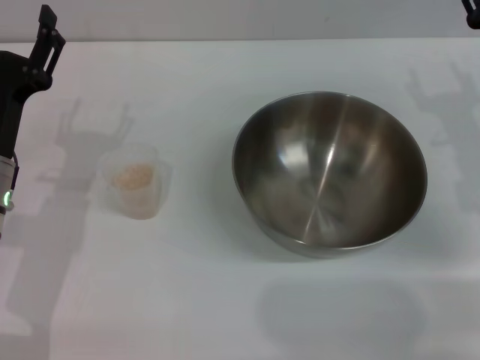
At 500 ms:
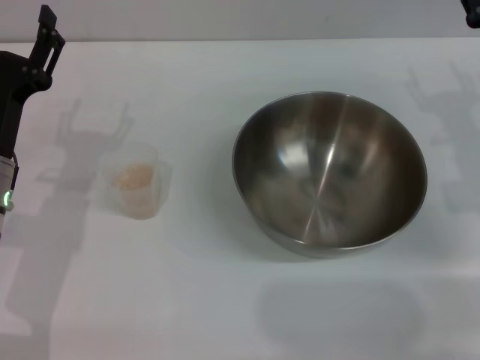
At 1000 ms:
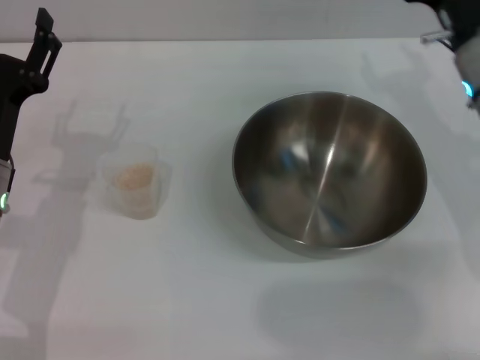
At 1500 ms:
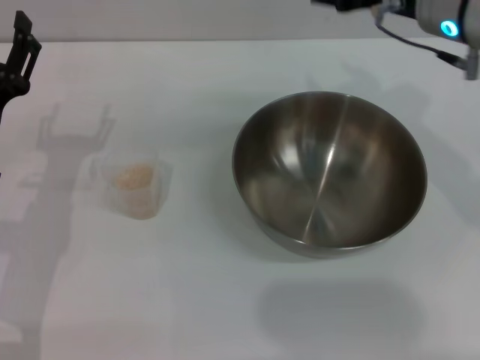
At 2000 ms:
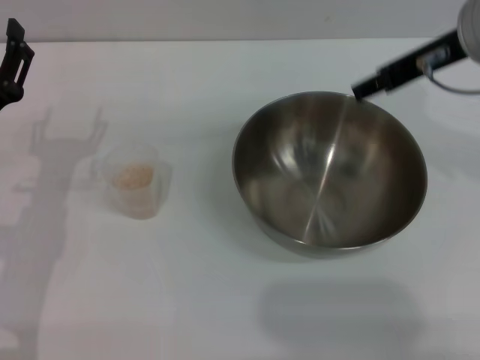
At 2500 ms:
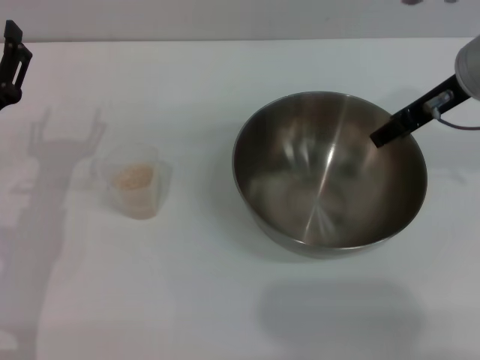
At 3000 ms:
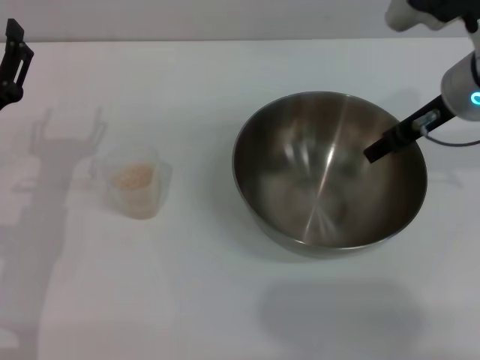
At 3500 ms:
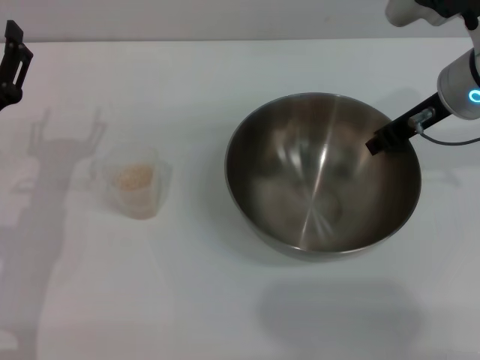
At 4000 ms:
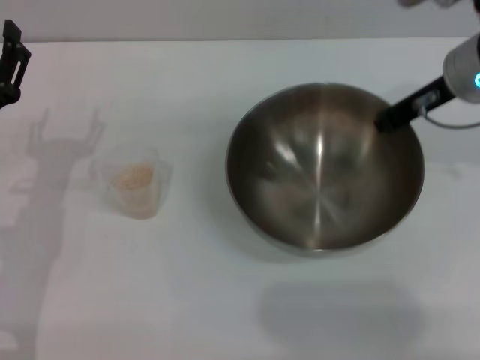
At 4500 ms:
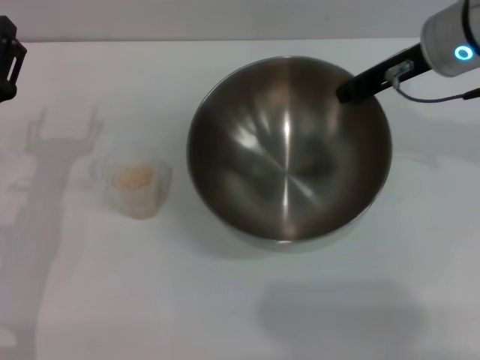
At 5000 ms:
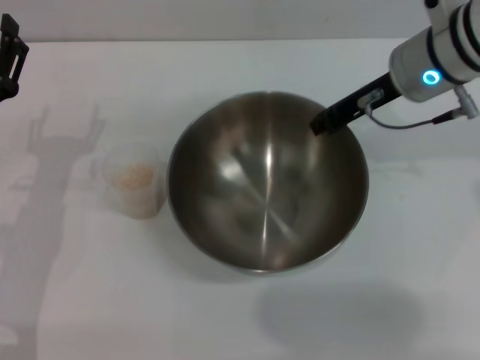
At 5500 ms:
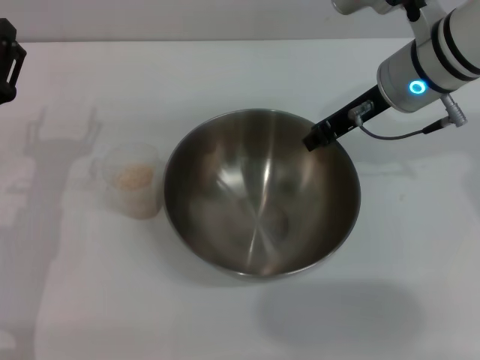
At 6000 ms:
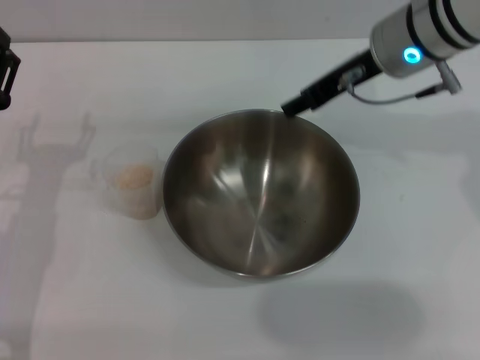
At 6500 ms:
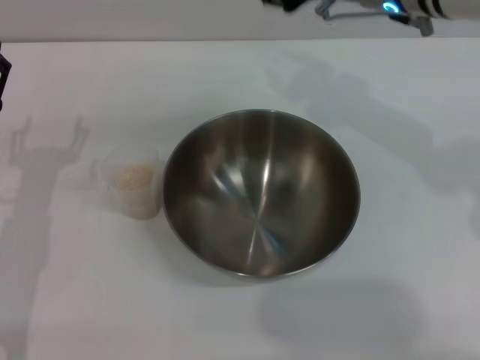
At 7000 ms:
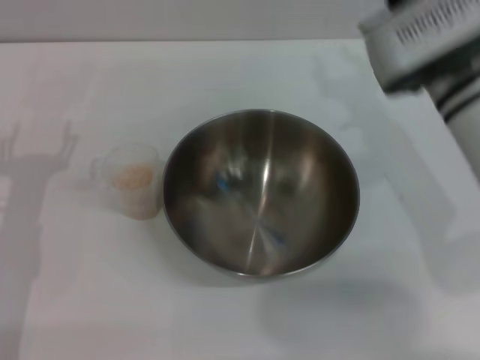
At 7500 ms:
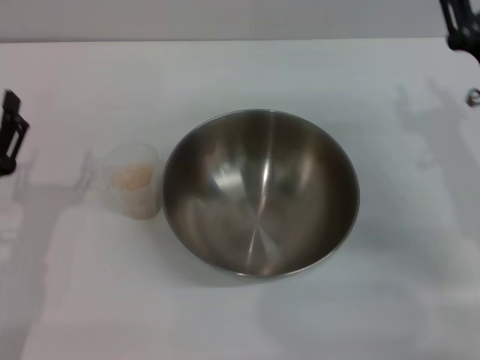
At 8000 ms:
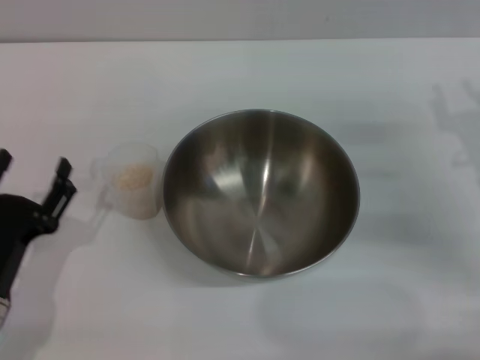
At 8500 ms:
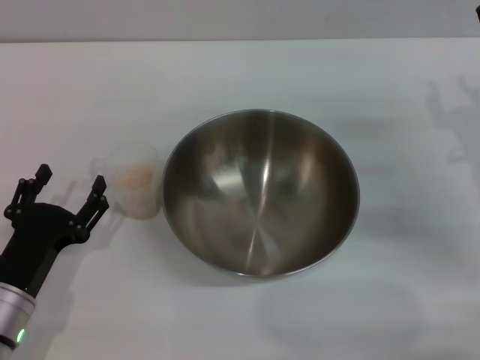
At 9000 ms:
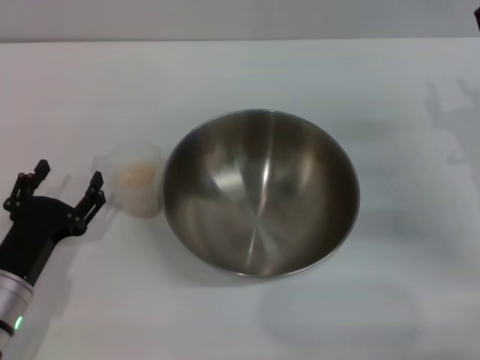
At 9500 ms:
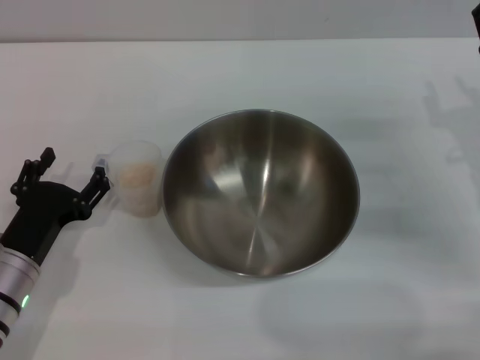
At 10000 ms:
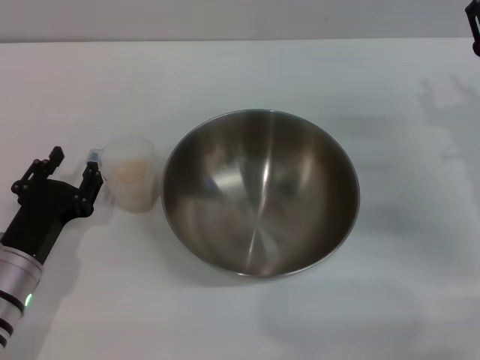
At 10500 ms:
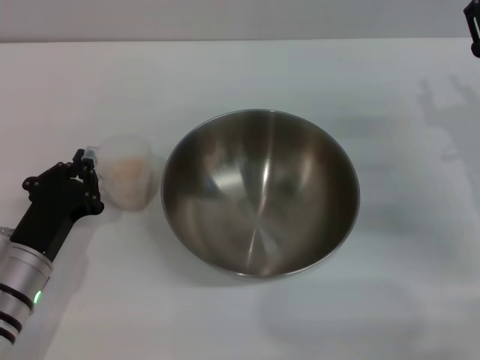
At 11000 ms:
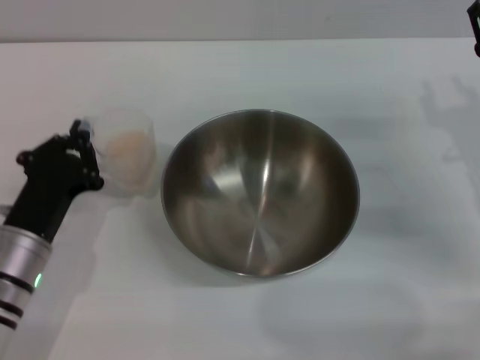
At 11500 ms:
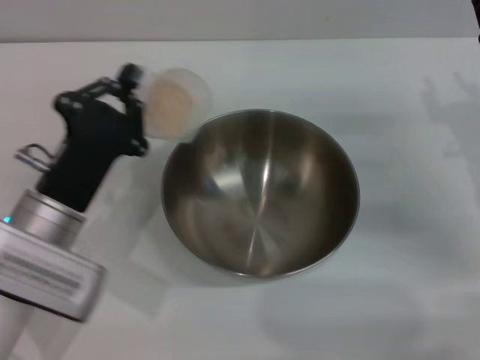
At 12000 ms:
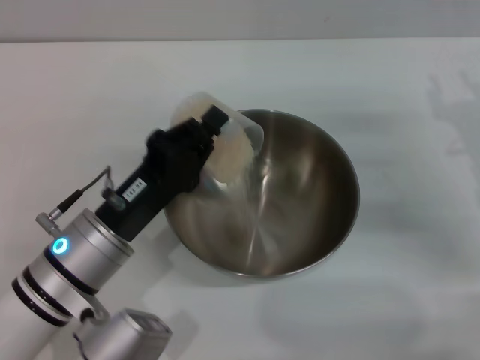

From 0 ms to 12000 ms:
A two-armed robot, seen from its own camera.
Task of the whole recording: Place the bowl in the middle of the table with one hand and pour the rice from the grain cup into it with the other hand.
Step, from 0 ms to 4000 ms: Pick up the bowl with the right gripper.
Step, from 4500 ms to 5500 ms: Place the bowl in the center of view with the right gripper.
Step, from 6000 ms to 10500 ms: Pick up the cup with rice in it with the left gripper.
From 0 ms to 2000 ms: The right gripper travels upward and to the left by approximately 15 cm.
From 2000 ms to 4000 ms: The right gripper is displaced downward by some 5 cm, and closes its fingers.
From 4000 ms to 6000 ms: The right gripper is displaced to the left by about 5 cm, and opens its fingers.
From 6000 ms to 8000 ms: The left gripper shifts roughly 10 cm backward and downward. Meanwhile the right gripper moves to the right, downward and backward, some 20 cm.
From 8000 ms to 10000 ms: There are only small adjustments of the grippers.
From 10000 ms to 12000 ms: The left gripper moves to the right and upward, approximately 10 cm, and closes its fingers.

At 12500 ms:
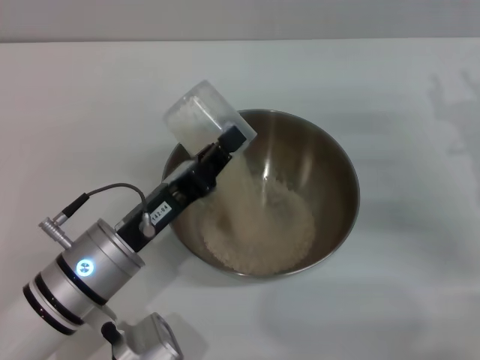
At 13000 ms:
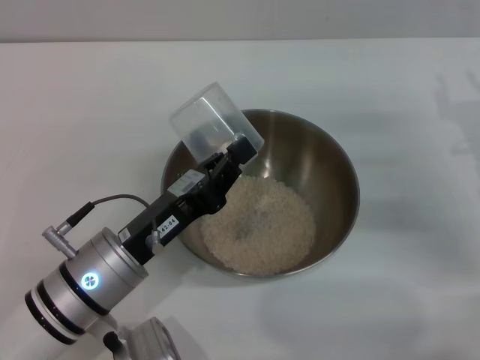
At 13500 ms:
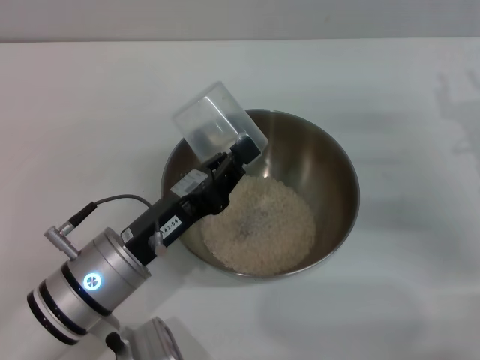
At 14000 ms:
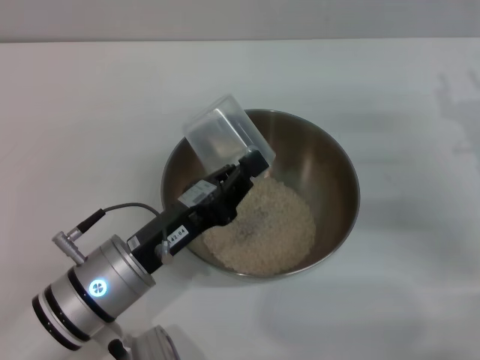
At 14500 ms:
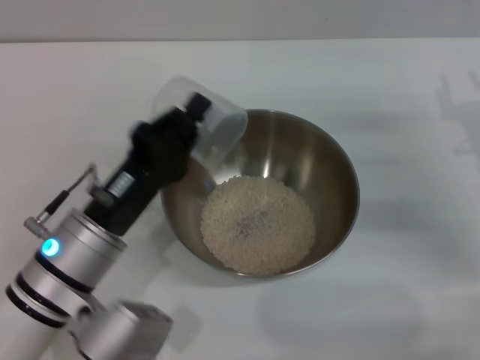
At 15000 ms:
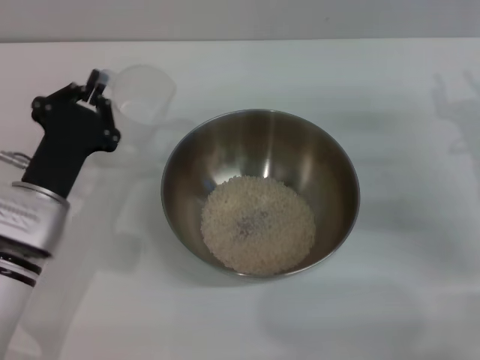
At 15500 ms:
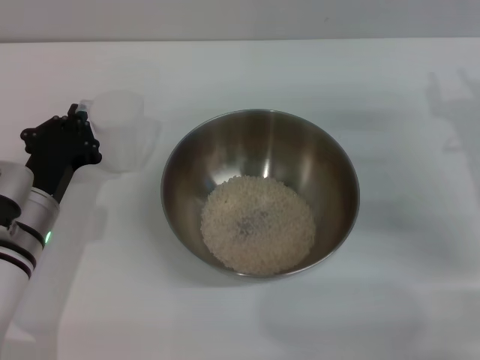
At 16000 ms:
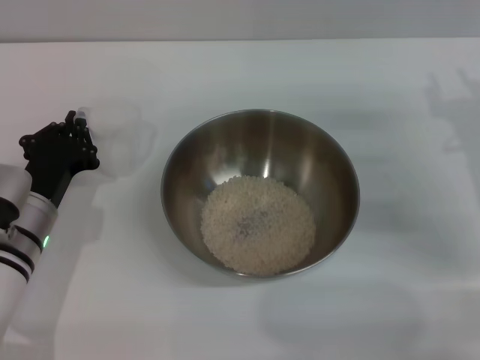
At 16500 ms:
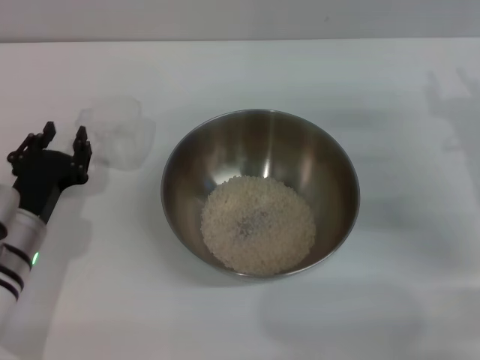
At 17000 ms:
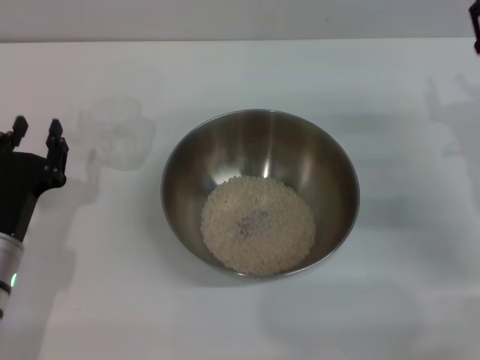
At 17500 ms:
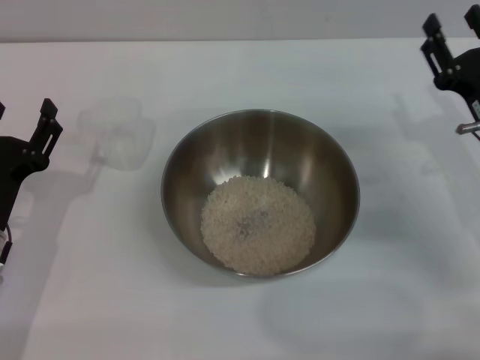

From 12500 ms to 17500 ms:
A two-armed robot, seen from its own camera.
Task of the whole recording: Place the bowl in the middle of the table with one hand and pour the rice from the grain cup into it with the other hand.
Step, from 14000 ms to 16500 ms: Place the cup on the table with the left gripper.
From 12500 ms to 15000 ms: The left gripper shifts approximately 5 cm to the left.
From 15000 ms to 17500 ms: The left gripper shifts about 5 cm to the left, and opens up.
